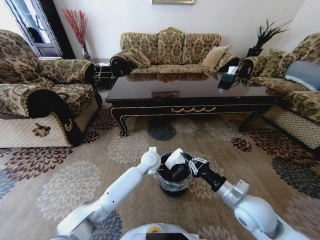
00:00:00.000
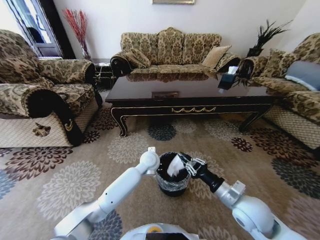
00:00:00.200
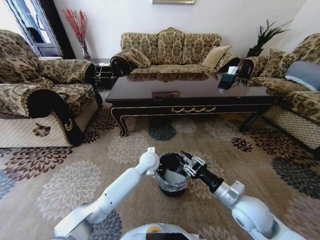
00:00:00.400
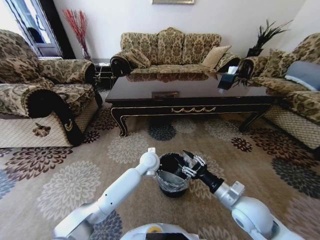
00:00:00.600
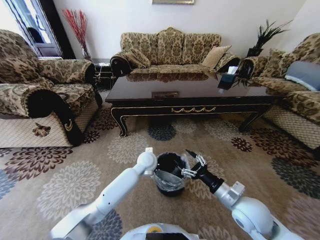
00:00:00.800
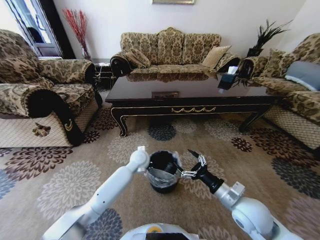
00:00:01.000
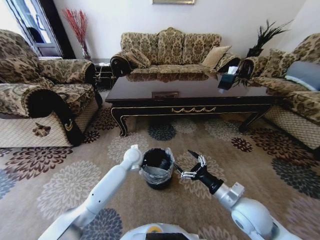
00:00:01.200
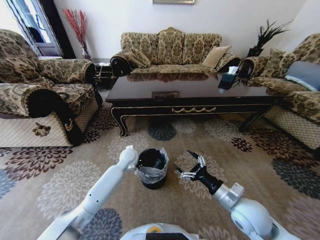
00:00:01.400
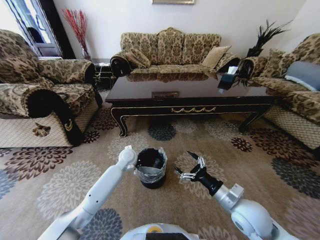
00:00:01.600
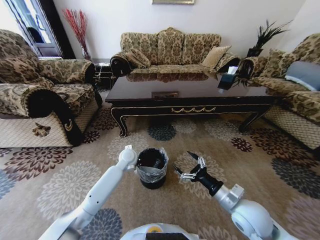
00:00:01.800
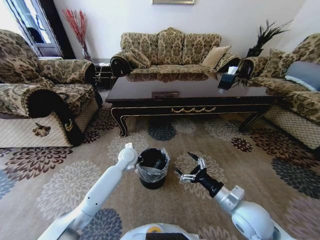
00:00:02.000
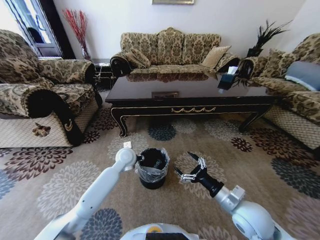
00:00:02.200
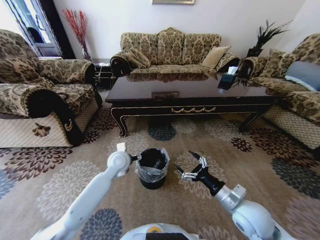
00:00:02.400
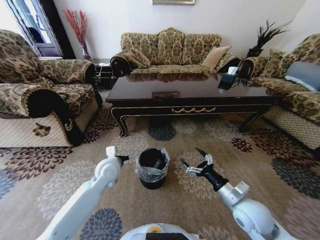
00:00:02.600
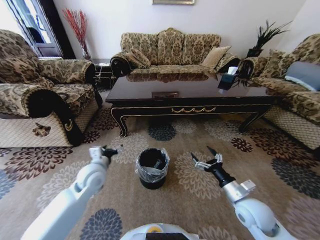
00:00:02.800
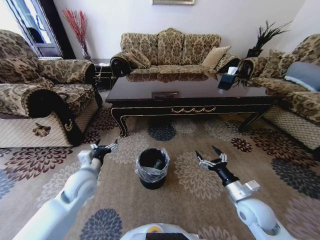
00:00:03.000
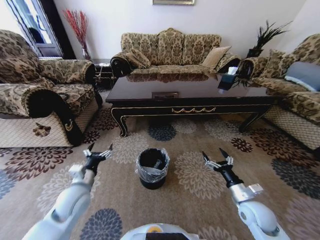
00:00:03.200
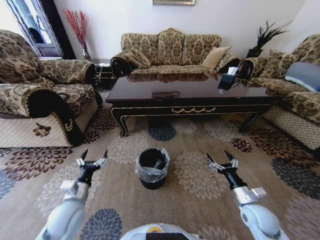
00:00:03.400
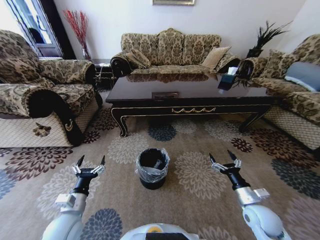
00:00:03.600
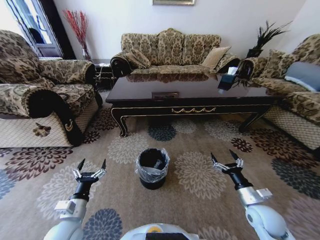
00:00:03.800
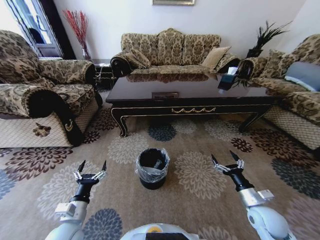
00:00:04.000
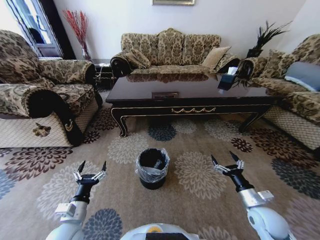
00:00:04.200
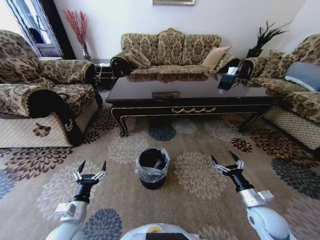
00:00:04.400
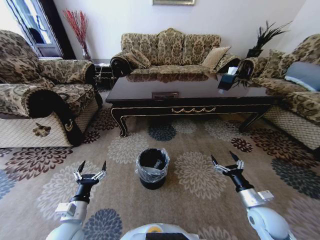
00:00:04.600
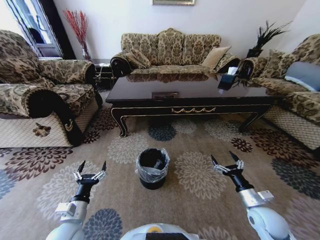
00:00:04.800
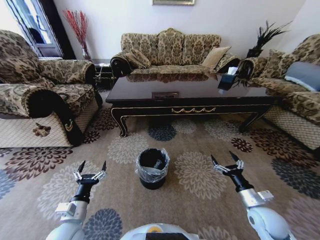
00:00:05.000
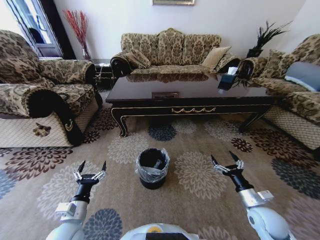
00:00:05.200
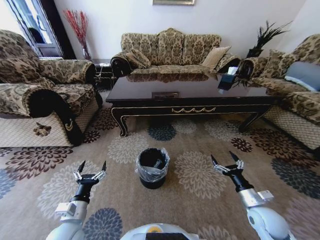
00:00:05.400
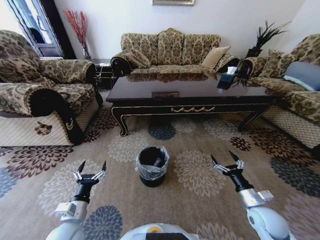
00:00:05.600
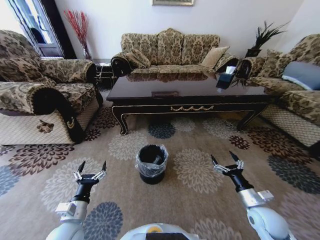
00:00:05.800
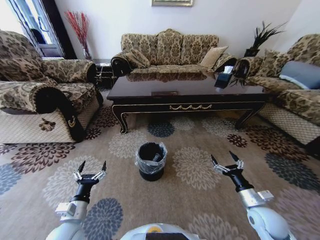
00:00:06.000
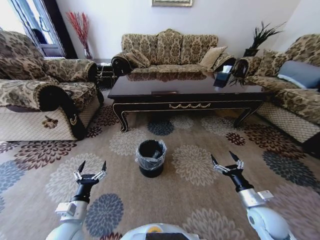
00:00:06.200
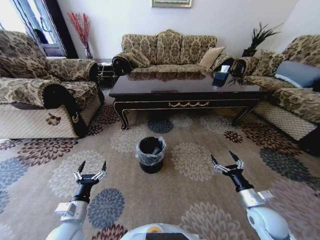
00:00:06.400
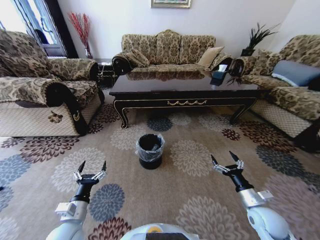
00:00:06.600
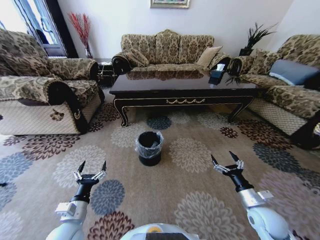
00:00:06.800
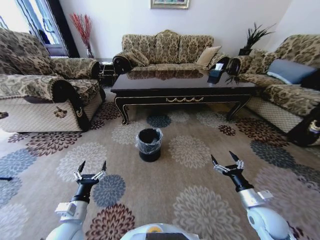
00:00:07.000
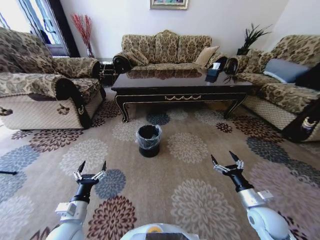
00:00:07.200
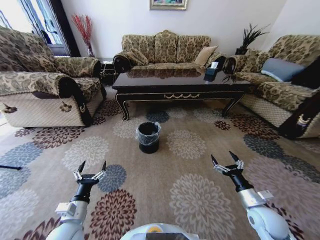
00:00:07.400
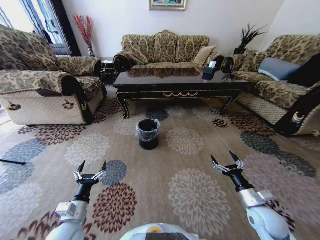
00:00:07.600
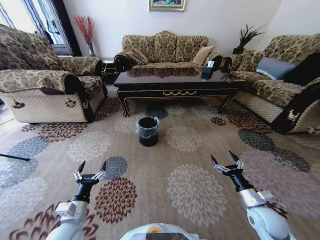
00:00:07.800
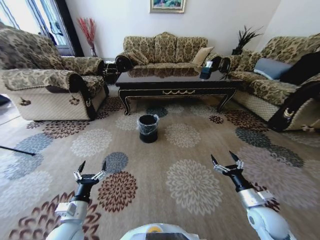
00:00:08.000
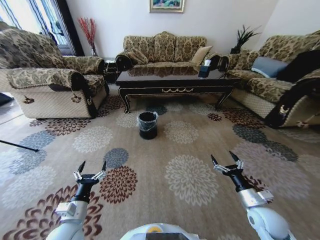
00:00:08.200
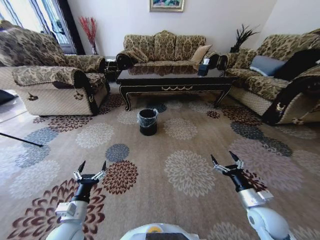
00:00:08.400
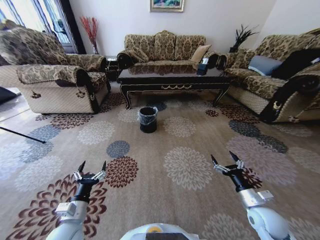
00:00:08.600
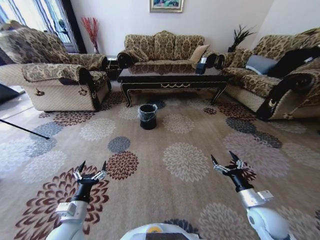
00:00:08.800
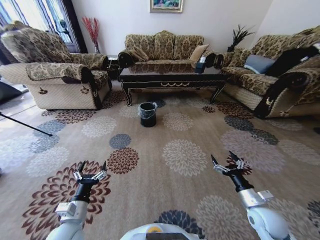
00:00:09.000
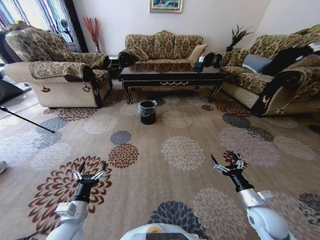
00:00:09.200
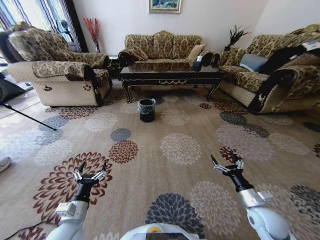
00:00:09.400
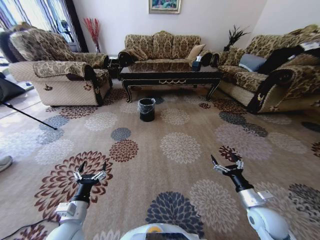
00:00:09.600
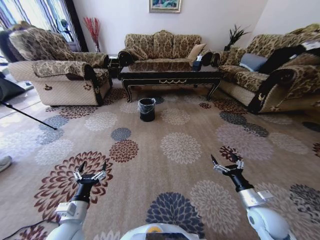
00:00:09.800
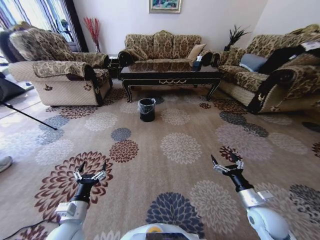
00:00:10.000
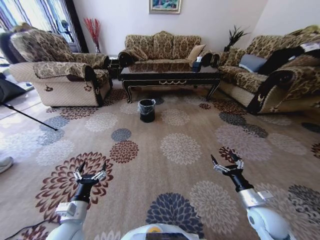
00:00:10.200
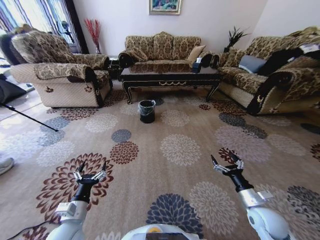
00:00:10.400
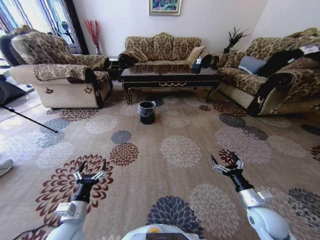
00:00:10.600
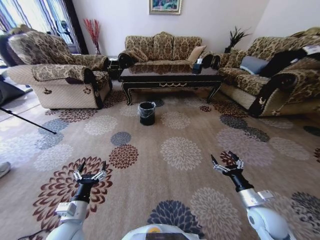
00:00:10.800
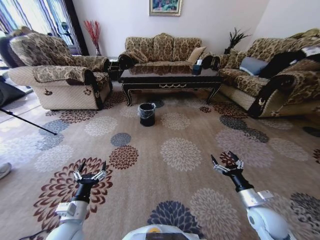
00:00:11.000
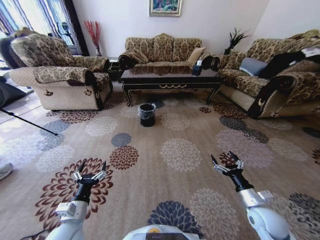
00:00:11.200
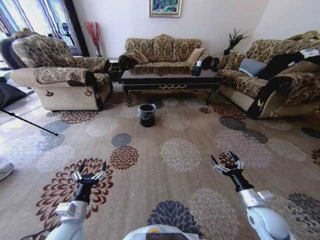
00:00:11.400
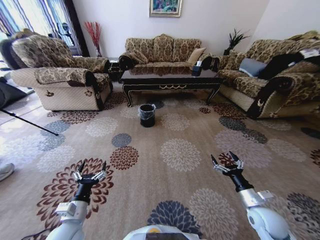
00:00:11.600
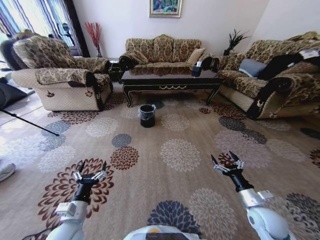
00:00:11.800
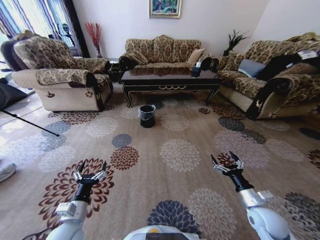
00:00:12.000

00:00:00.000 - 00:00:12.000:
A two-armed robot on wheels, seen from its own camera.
Task of the whole recording: Move to the front of the table and pick up the trash from the floor, then place it into the trash bin.
00:00:00.000 - 00:00:01.600: The left gripper shifts roughly 10 cm to the left. Meanwhile the right gripper opens its fingers.
00:00:01.600 - 00:00:03.000: The right gripper travels to the right by roughly 5 cm. The left gripper travels backward and to the left by roughly 20 cm, and opens its fingers.
00:00:03.000 - 00:00:04.400: The right gripper is displaced to the right by some 5 cm. The left gripper goes roughly 15 cm backward and downward.

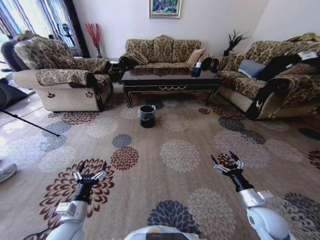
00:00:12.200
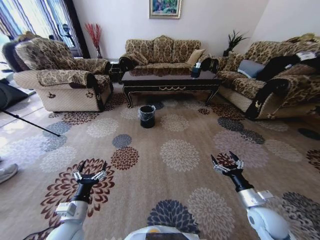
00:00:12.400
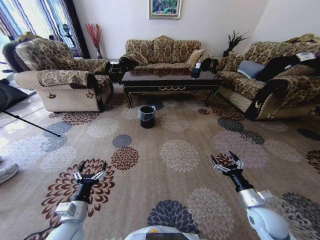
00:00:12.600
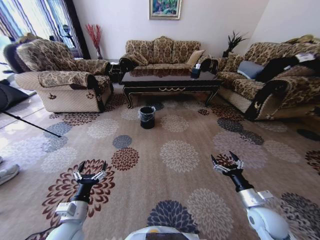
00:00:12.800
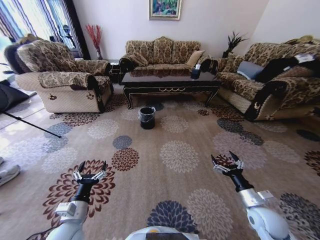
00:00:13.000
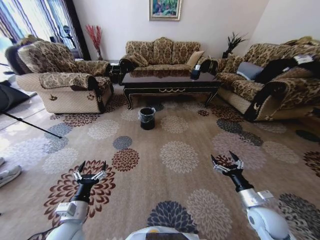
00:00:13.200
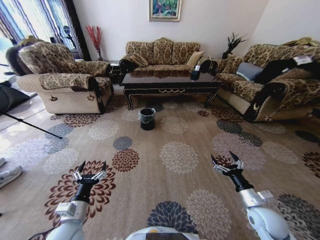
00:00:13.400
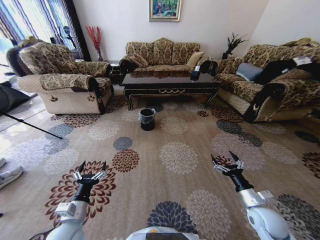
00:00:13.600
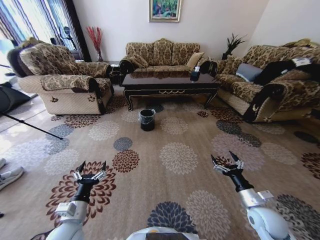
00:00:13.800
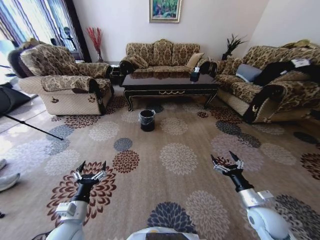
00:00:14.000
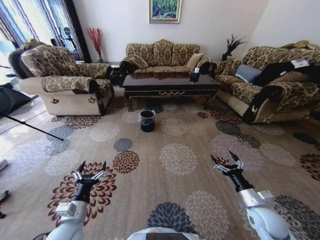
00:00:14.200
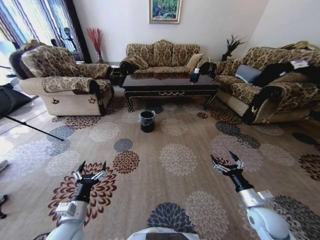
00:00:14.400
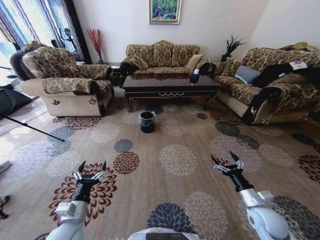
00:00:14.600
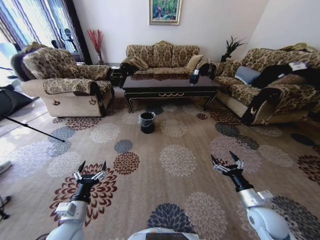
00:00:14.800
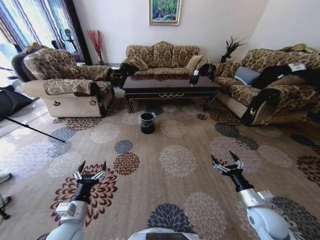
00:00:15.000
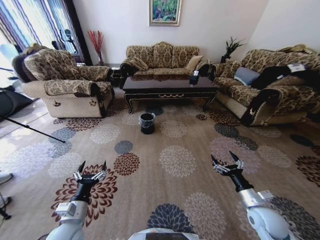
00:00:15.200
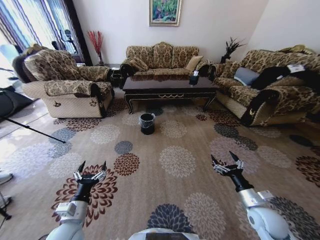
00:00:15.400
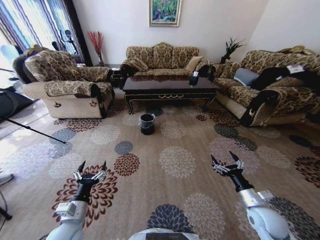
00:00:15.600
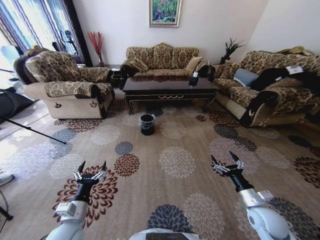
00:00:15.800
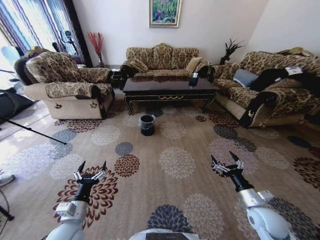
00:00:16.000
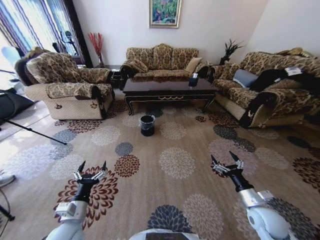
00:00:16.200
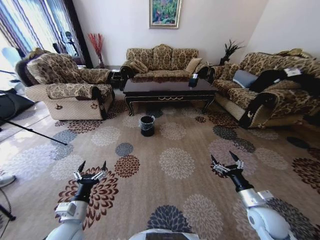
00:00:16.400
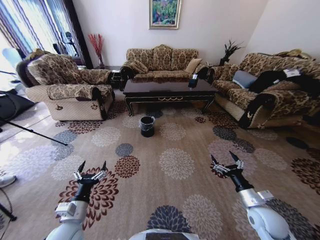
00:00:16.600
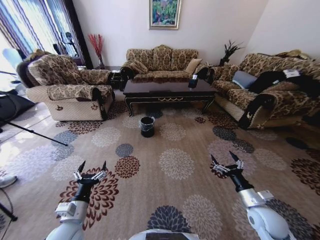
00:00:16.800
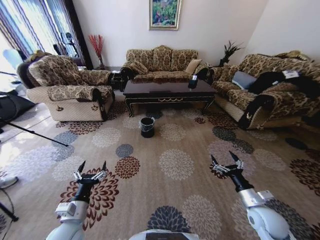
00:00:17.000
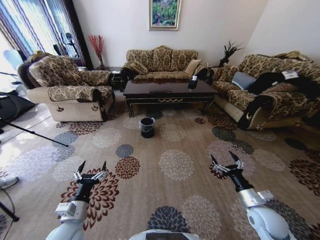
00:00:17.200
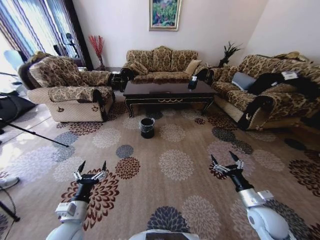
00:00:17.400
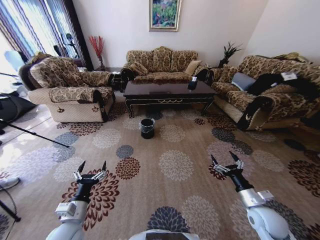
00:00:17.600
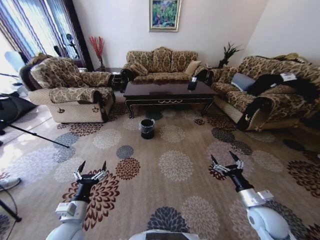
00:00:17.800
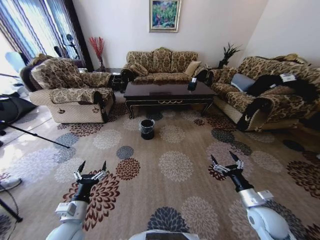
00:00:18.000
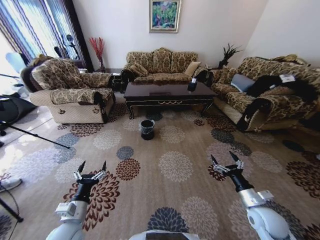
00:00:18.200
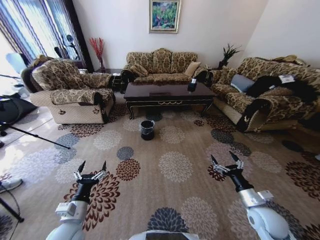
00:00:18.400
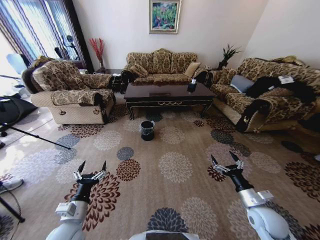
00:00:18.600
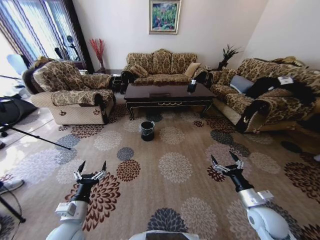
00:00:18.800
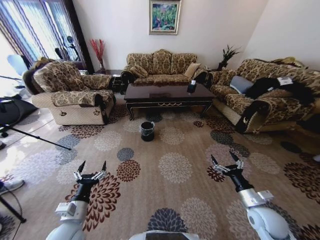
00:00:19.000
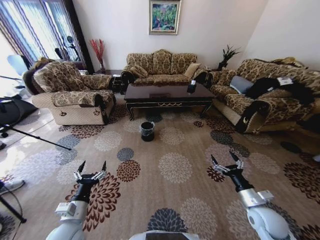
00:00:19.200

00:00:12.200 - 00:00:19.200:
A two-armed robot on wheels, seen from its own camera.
Task of the whole recording: Move to the front of the table and pick up the trash from the floor, then place it into the trash bin.
00:00:17.800 - 00:00:19.200: Both grippers stay about where they are.

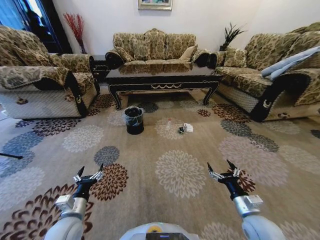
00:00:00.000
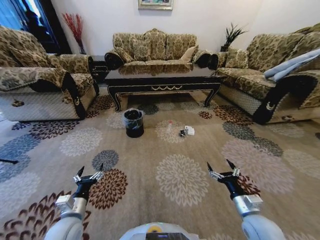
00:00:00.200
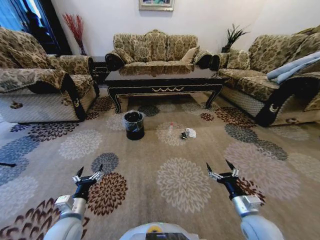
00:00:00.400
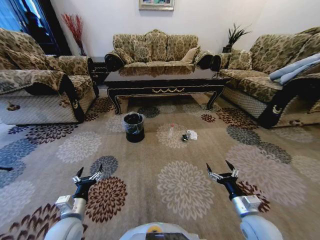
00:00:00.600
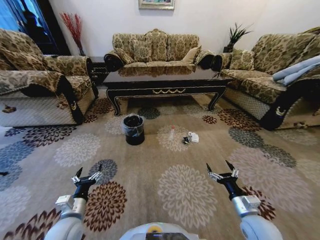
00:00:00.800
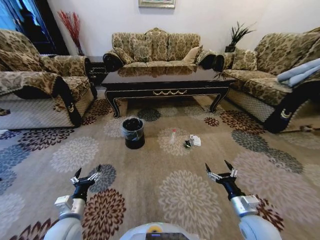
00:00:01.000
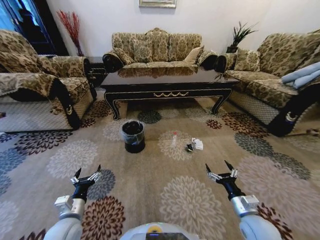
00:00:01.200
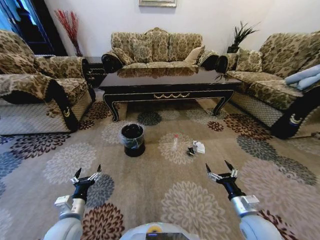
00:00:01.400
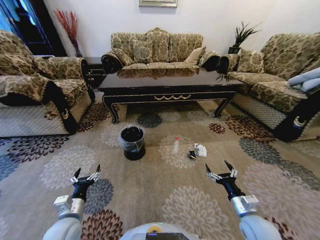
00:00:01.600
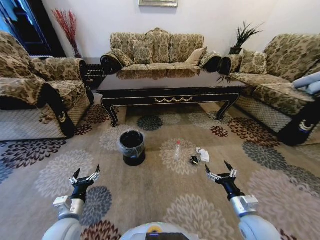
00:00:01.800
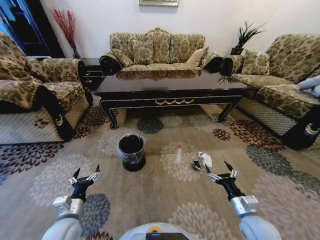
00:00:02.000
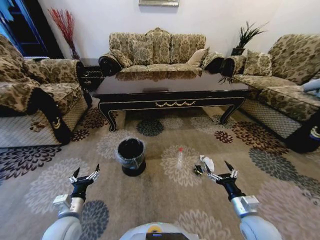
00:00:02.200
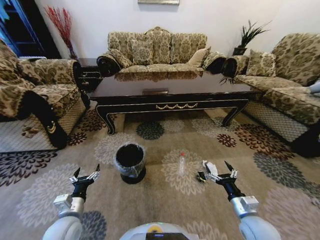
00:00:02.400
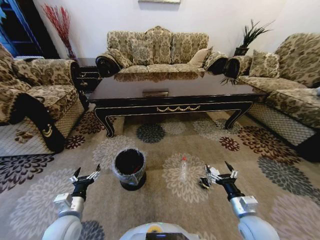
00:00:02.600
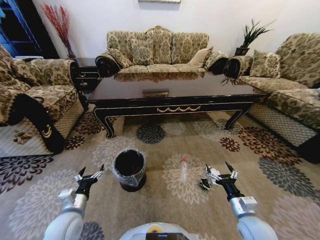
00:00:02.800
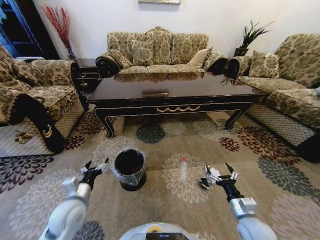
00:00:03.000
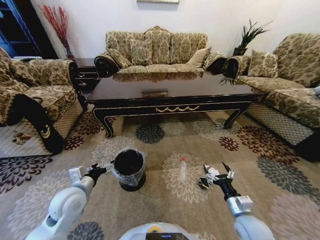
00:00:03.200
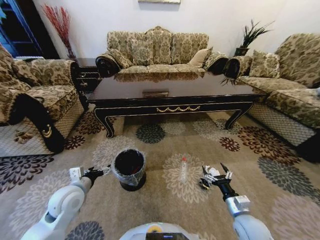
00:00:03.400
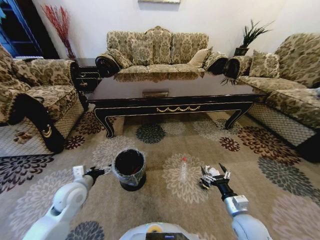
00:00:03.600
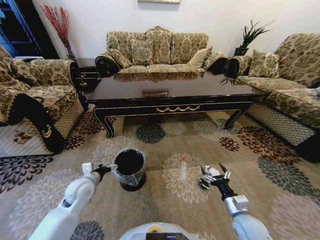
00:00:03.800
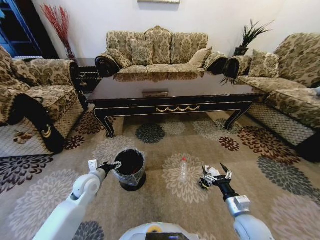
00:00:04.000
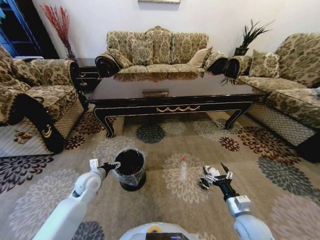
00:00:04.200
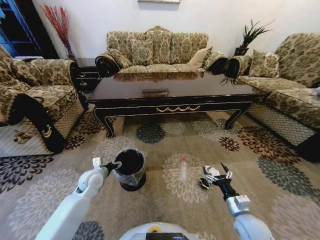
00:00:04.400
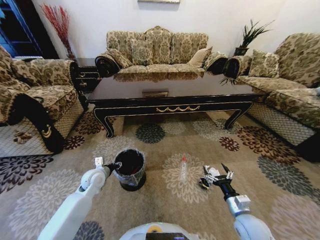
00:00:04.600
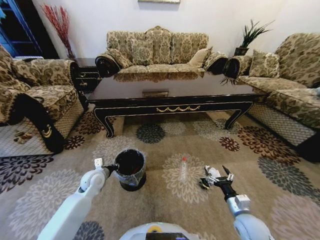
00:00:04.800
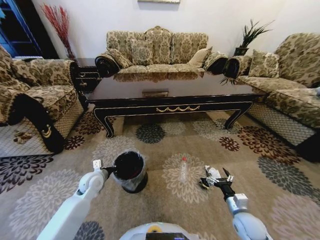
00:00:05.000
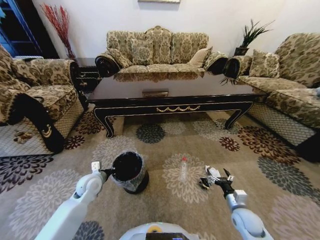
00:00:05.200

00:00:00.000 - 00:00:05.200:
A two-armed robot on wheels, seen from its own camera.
Task of the whole recording: Move to the front of the table and pick up the trash from the floor, then place it into the trash bin.
00:00:01.800 - 00:00:03.400: The left gripper shifts roughly 10 cm forward and upward.
00:00:03.400 - 00:00:05.200: The right gripper heads downward, covering about 5 cm. The left gripper moves forward and downward, some 10 cm, and closes.
